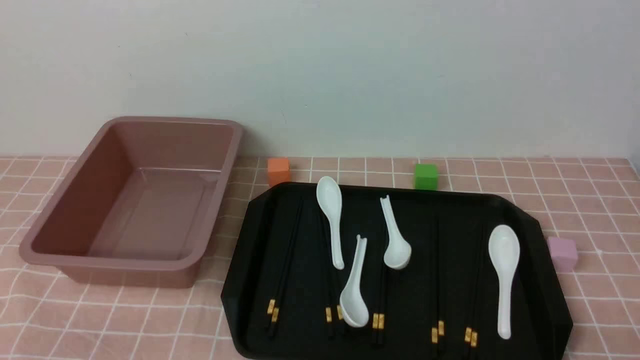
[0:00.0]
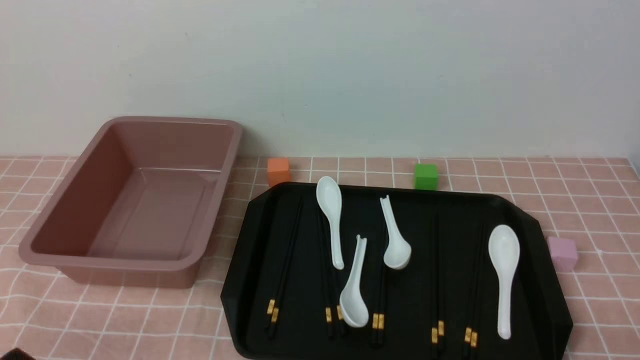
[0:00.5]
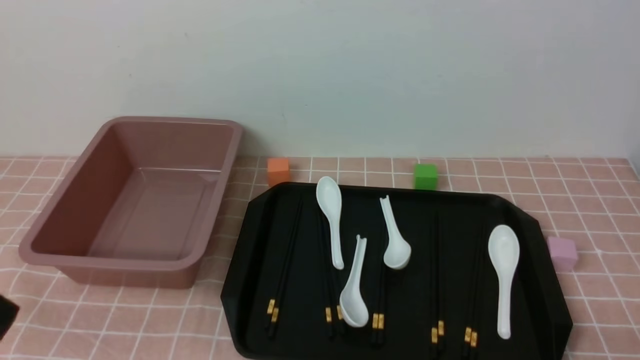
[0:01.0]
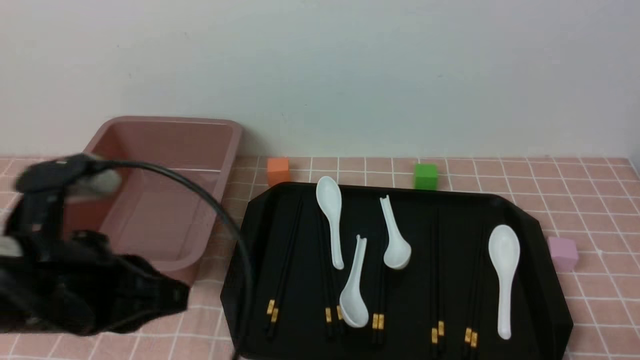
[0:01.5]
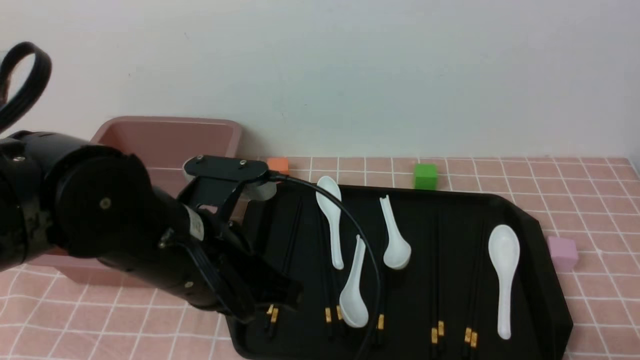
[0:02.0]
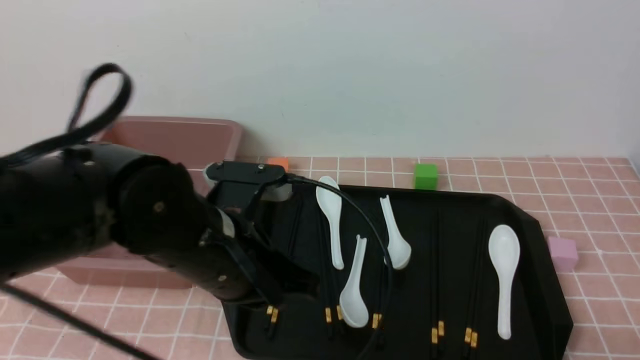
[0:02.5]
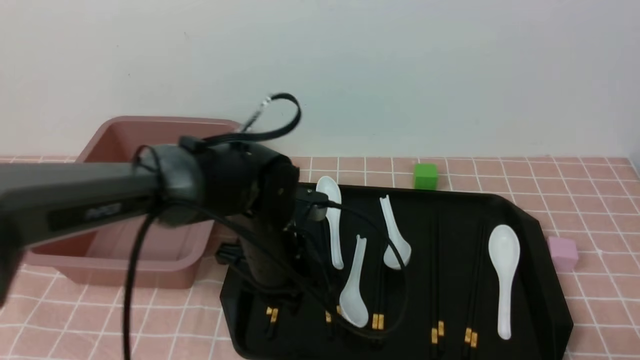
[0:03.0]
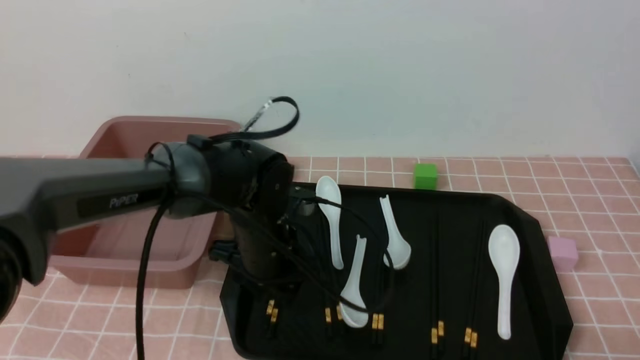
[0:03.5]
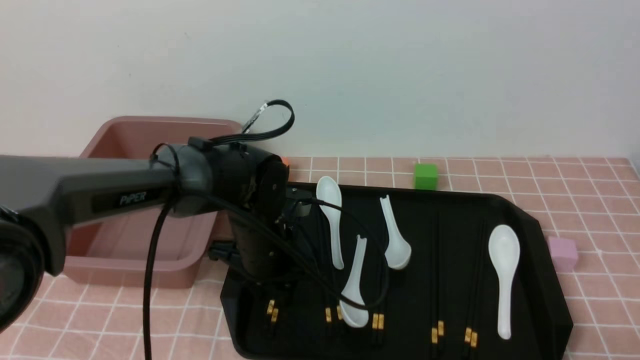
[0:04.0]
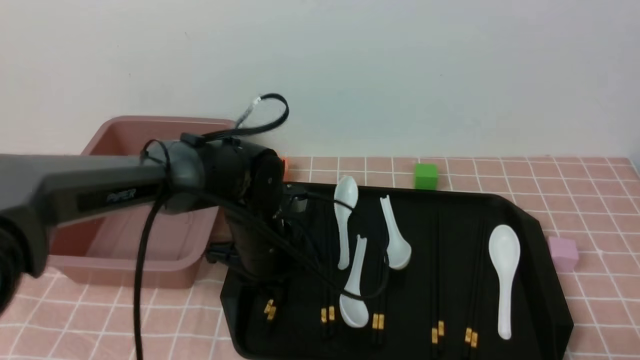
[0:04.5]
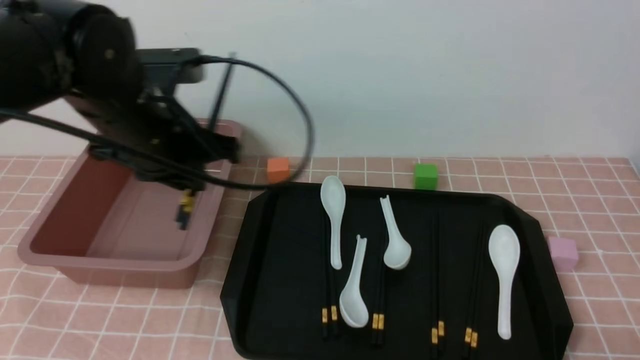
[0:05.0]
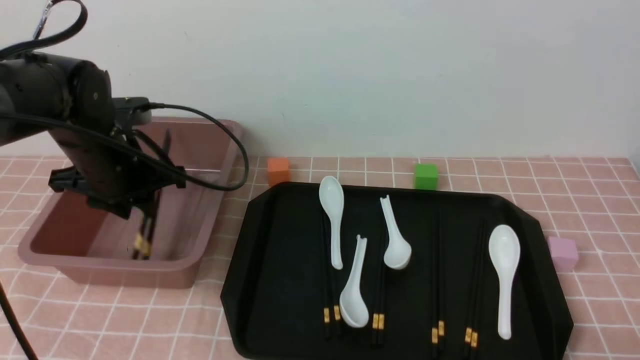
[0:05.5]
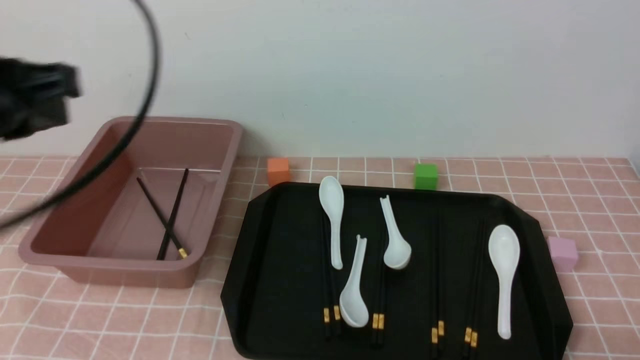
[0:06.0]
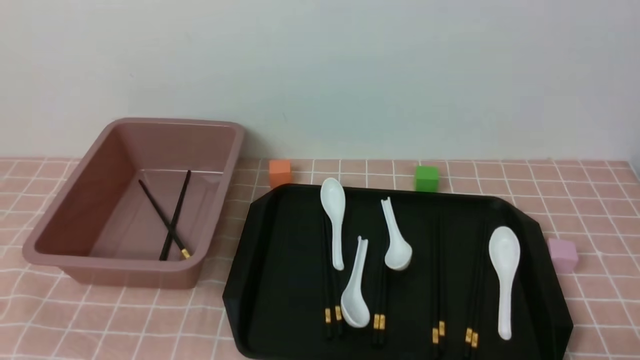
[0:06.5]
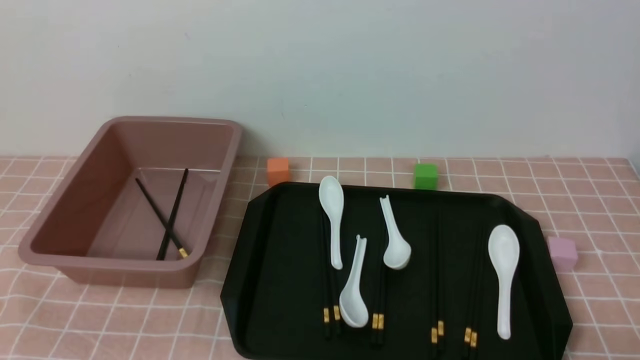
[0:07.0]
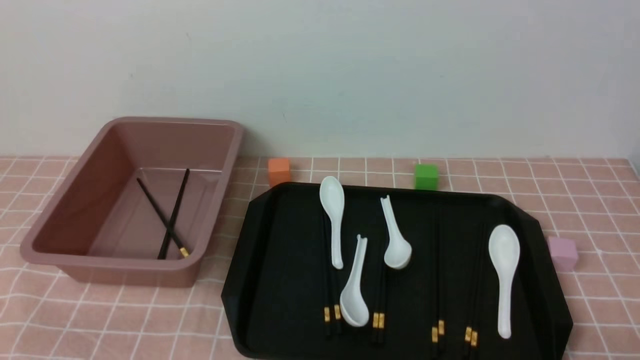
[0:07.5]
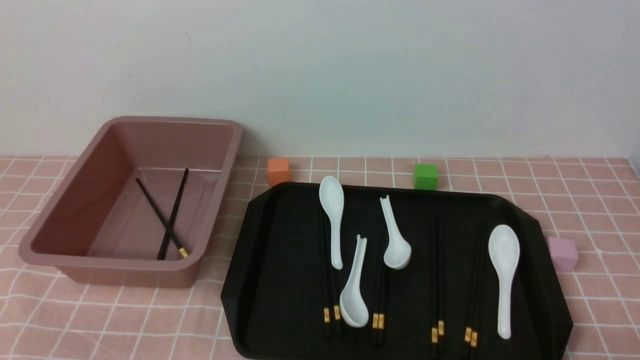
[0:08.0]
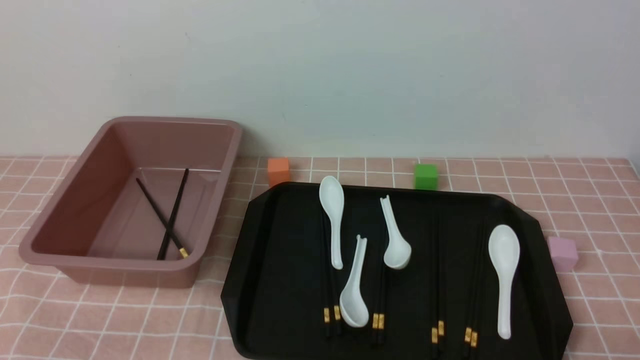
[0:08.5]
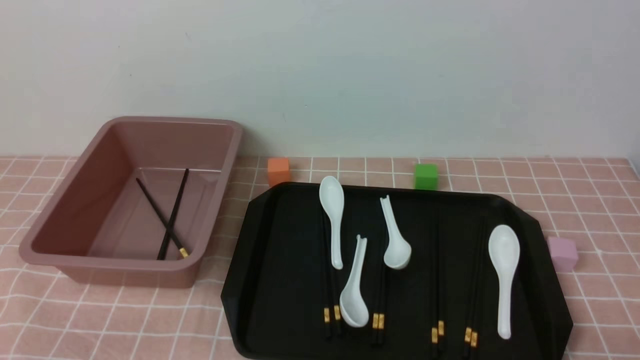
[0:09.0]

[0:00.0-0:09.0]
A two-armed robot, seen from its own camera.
Step, 0:00.0 to 0:04.5: use the left arm to grab a pair of chopsticks.
Step, 0:05.0 to 0:06.0: use the left arm to put the chopsticks into the lunch box.
0:00.0 to 0:02.0: The left gripper shifts approximately 25 cm forward, to the right and upward, and closes its fingers.
0:02.0 to 0:04.5: The left gripper is displaced forward and downward by approximately 15 cm, and opens.
0:04.5 to 0:07.0: The left gripper travels backward and to the left by some 35 cm, and closes up.

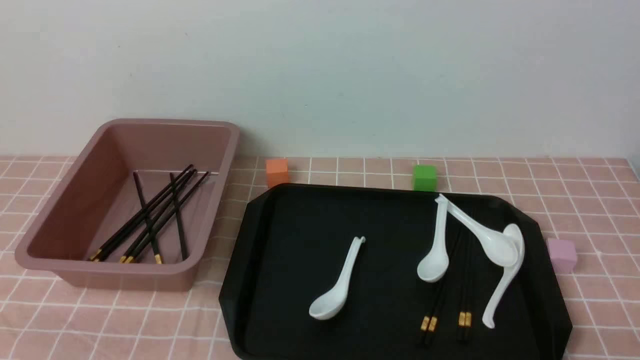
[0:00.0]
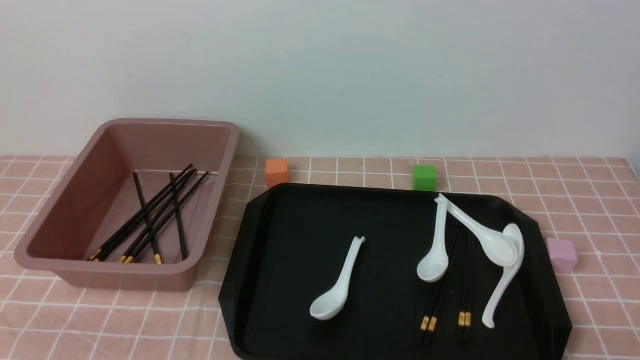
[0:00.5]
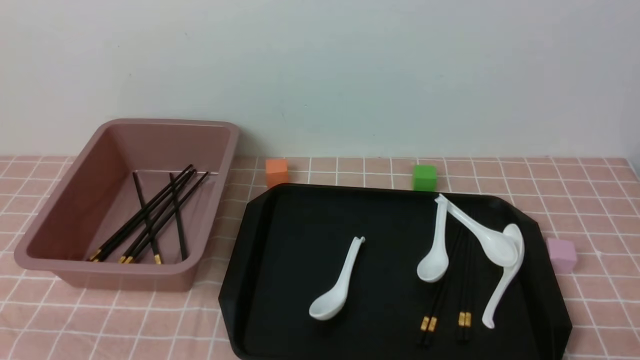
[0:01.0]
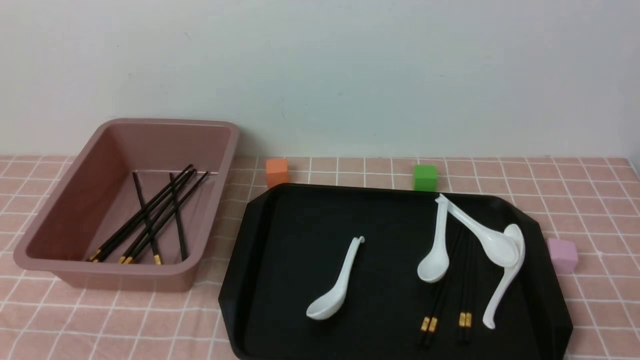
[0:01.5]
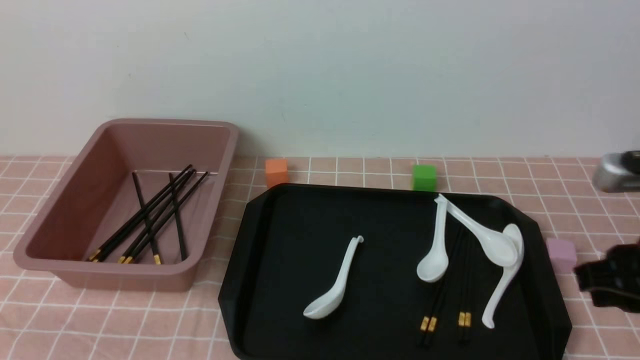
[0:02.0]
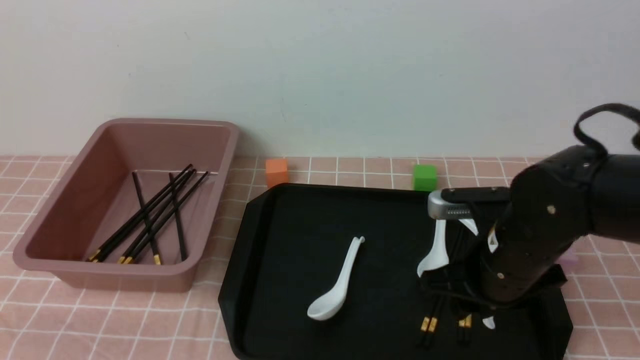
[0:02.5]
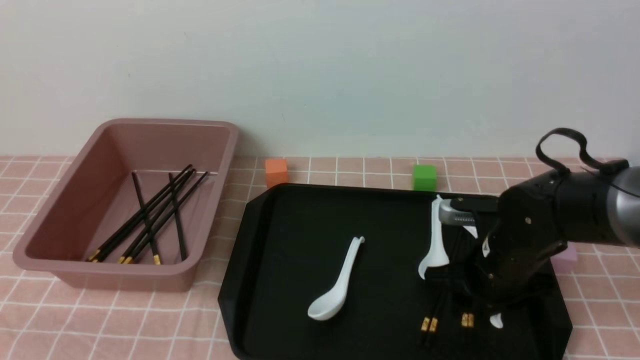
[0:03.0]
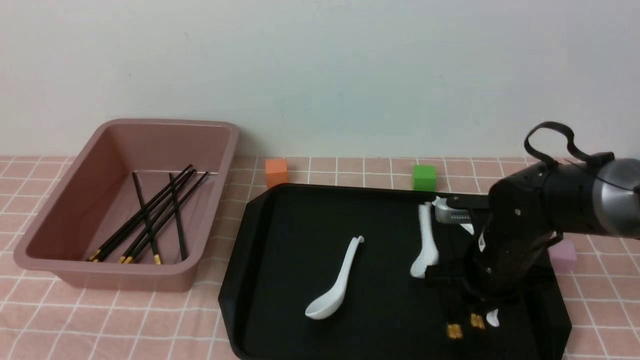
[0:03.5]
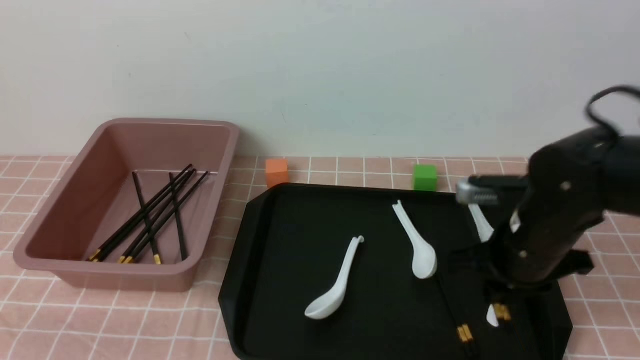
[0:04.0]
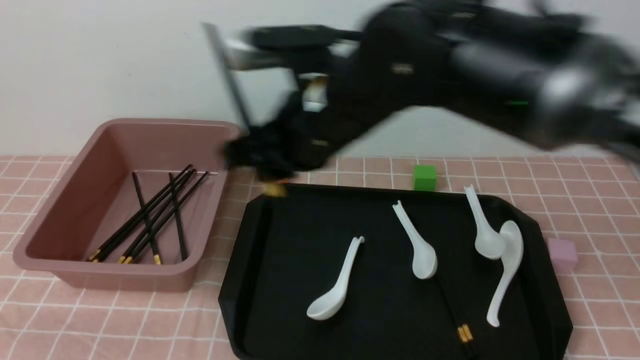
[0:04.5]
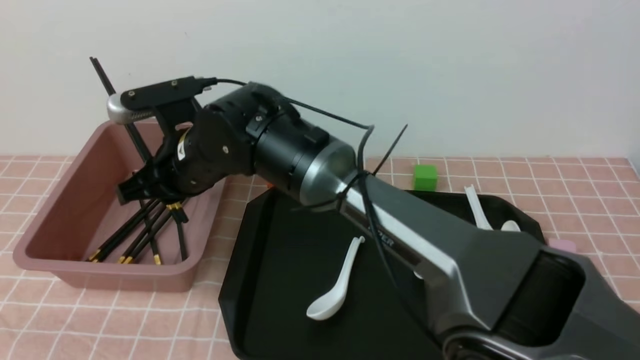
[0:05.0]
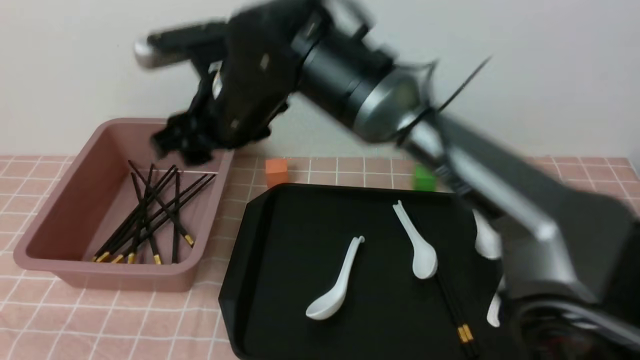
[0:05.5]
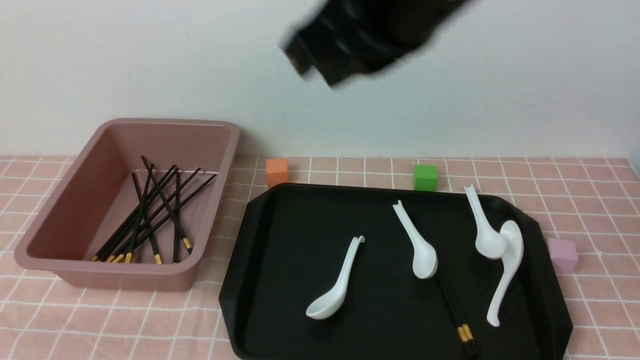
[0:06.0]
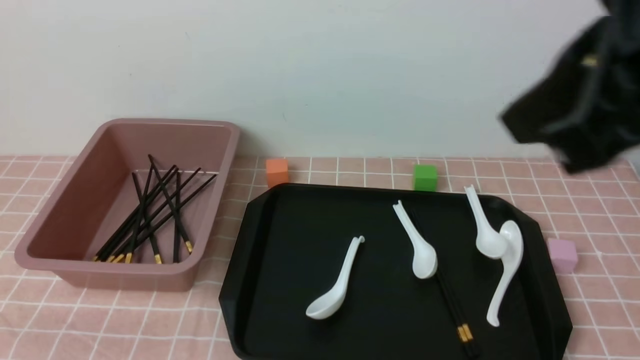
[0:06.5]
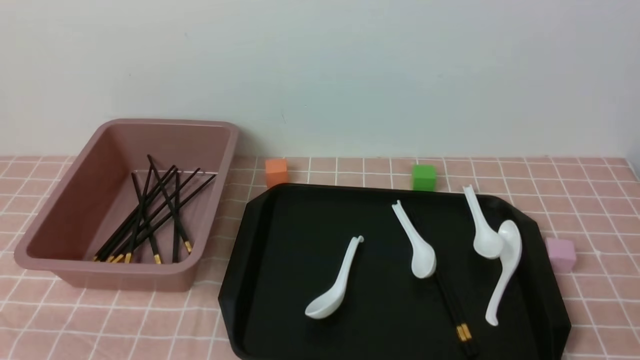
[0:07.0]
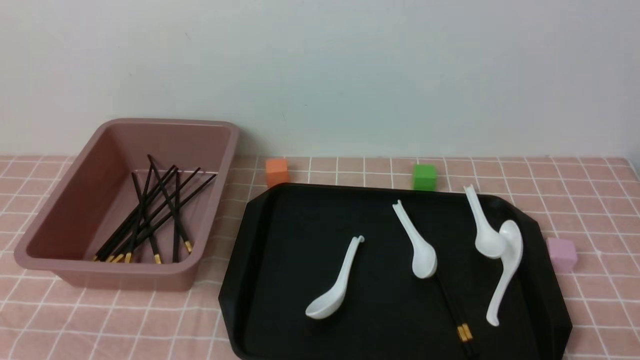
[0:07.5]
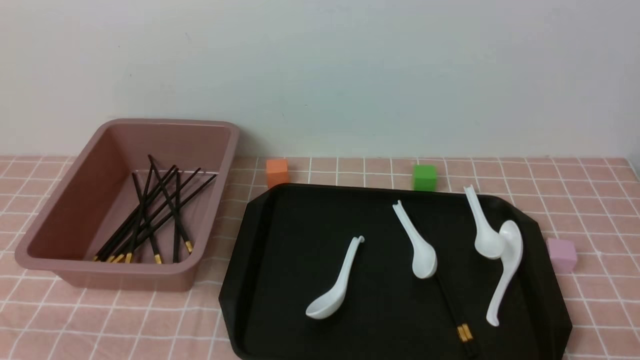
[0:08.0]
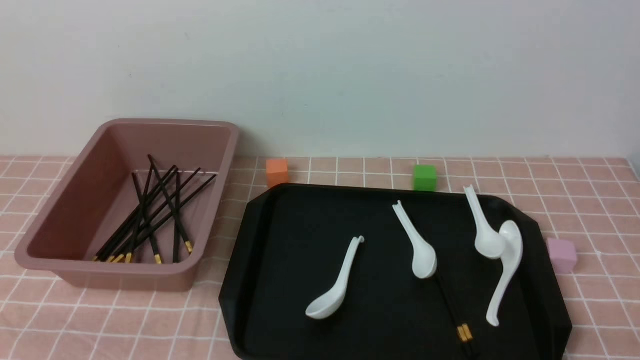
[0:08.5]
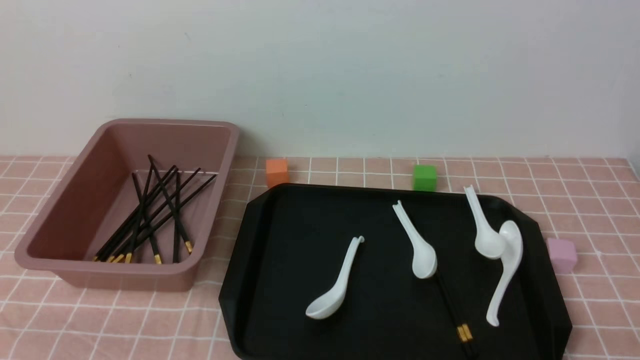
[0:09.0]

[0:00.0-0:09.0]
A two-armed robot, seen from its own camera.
Step, 0:00.0 to 0:04.0: use the right arm to grab a pair of chopsticks.
Step, 0:04.5 to 0:05.5: use the right arm to put the chopsticks into the lunch box.
0:00.0 to 0:02.0: The right gripper travels forward and upward by about 20 cm.
0:02.0 to 0:04.5: The right gripper heads to the left and forward, covering some 30 cm.
0:04.5 to 0:07.0: The right gripper goes roughly 40 cm to the right and backward, and closes up.
0:07.0 to 0:09.0: The right gripper is displaced downward by about 10 cm.
